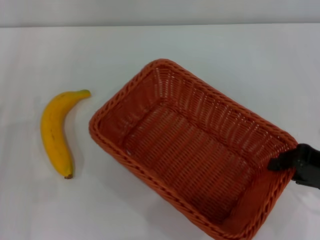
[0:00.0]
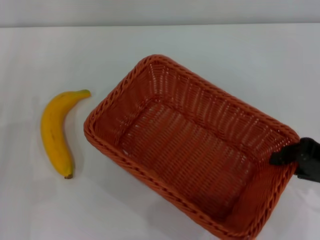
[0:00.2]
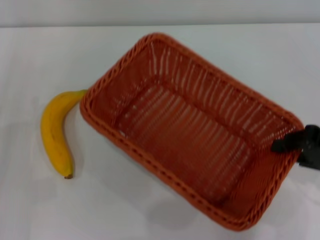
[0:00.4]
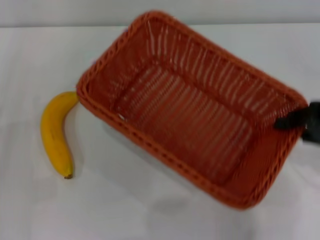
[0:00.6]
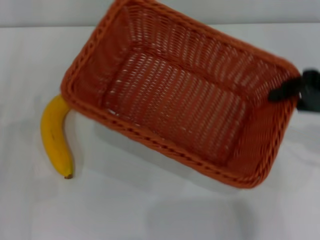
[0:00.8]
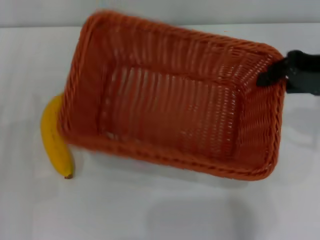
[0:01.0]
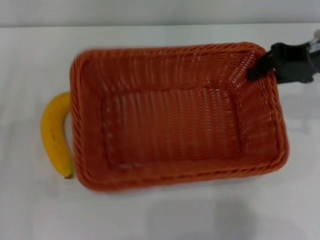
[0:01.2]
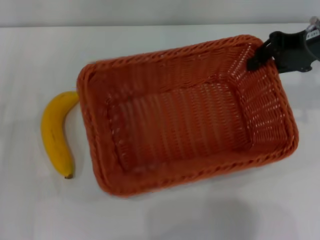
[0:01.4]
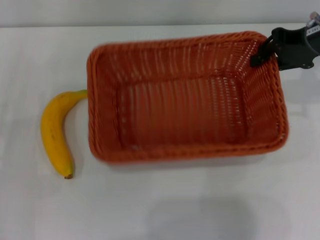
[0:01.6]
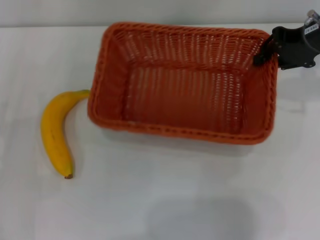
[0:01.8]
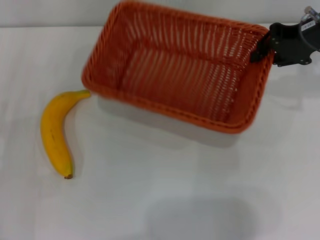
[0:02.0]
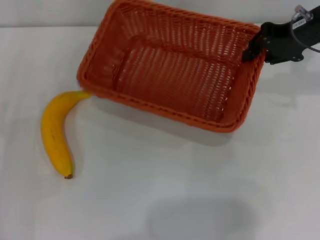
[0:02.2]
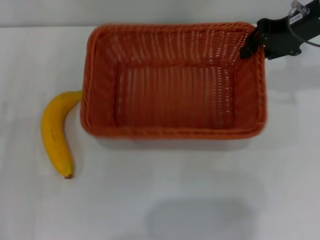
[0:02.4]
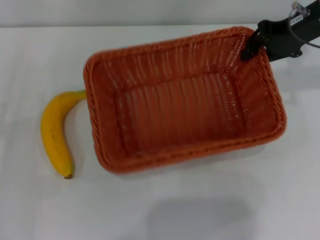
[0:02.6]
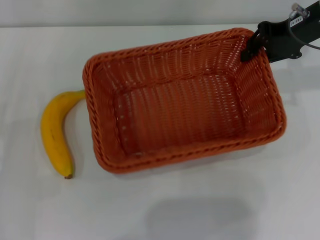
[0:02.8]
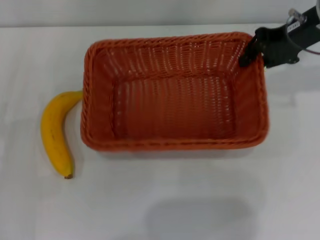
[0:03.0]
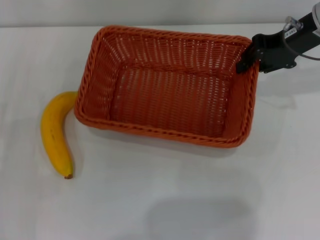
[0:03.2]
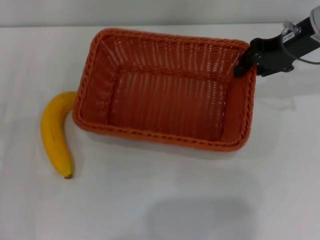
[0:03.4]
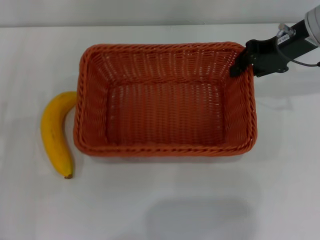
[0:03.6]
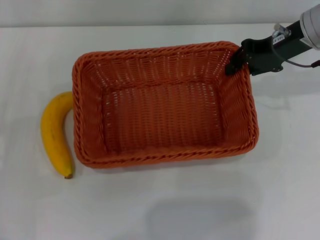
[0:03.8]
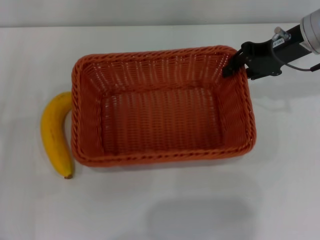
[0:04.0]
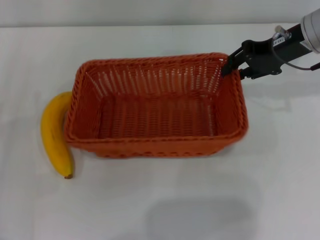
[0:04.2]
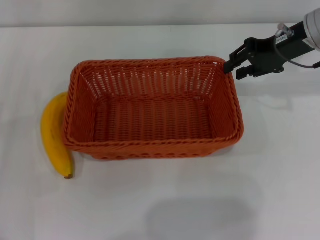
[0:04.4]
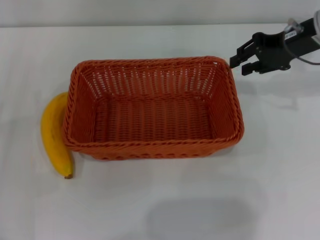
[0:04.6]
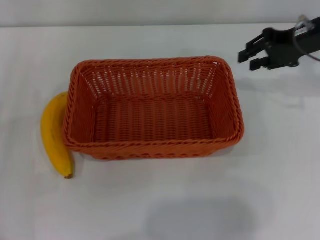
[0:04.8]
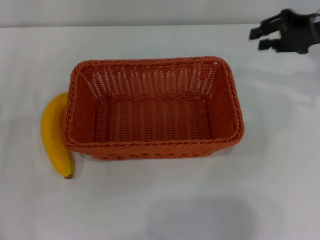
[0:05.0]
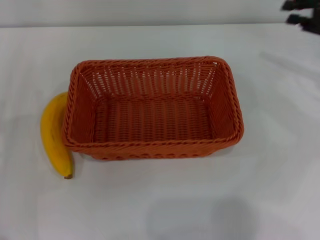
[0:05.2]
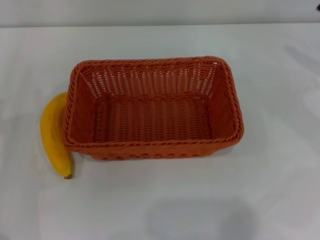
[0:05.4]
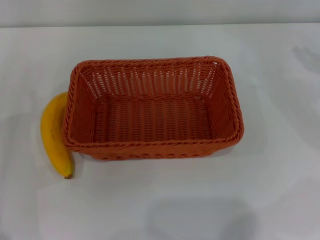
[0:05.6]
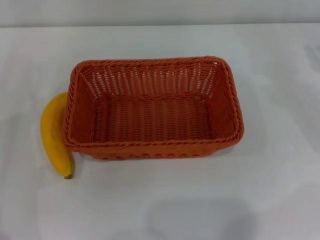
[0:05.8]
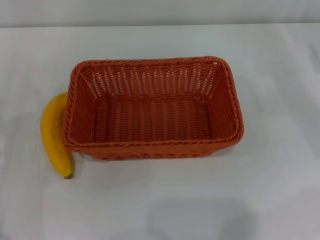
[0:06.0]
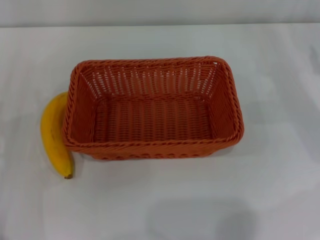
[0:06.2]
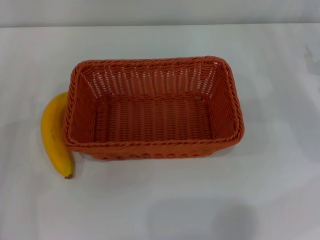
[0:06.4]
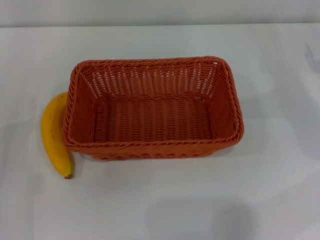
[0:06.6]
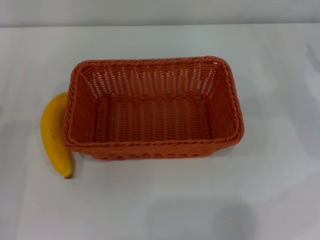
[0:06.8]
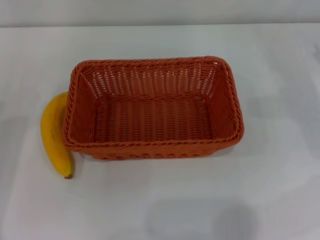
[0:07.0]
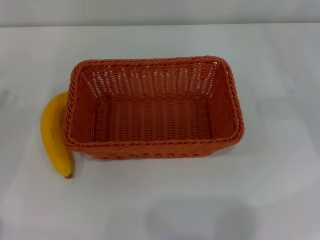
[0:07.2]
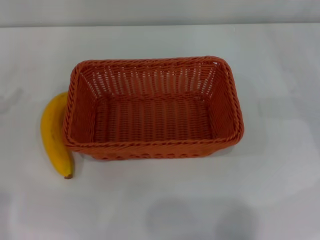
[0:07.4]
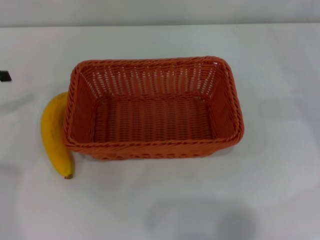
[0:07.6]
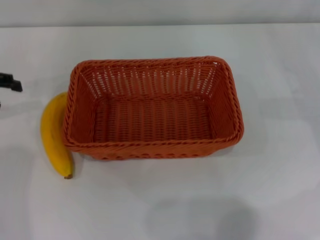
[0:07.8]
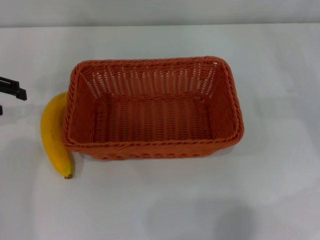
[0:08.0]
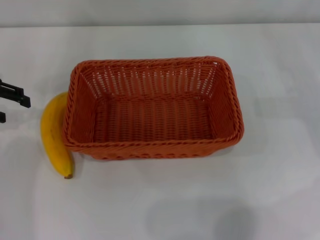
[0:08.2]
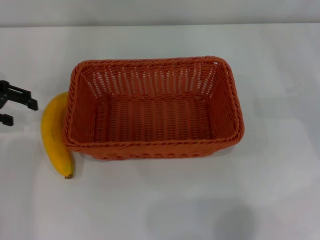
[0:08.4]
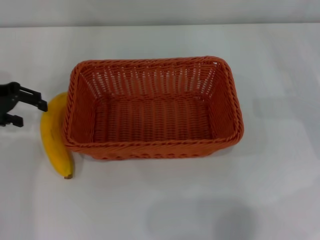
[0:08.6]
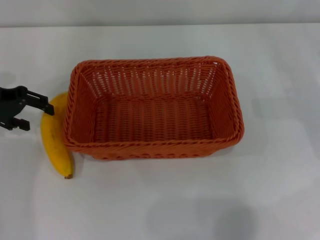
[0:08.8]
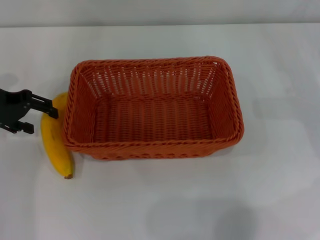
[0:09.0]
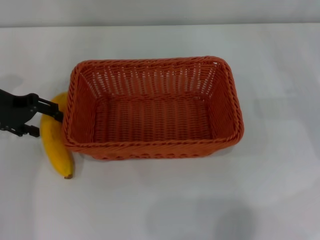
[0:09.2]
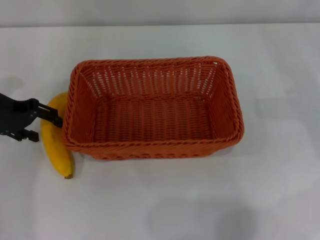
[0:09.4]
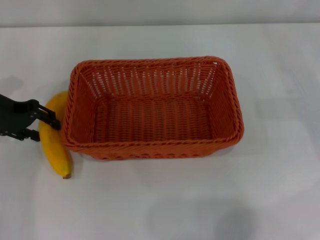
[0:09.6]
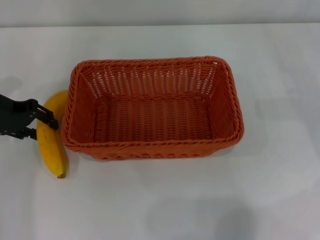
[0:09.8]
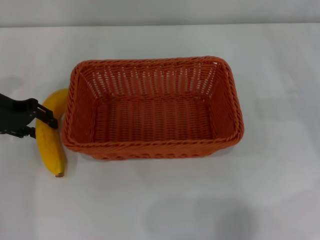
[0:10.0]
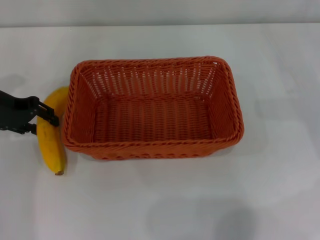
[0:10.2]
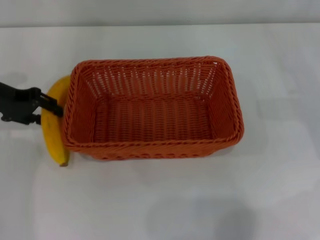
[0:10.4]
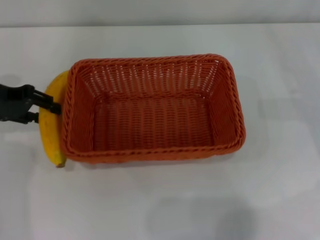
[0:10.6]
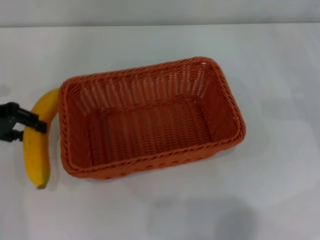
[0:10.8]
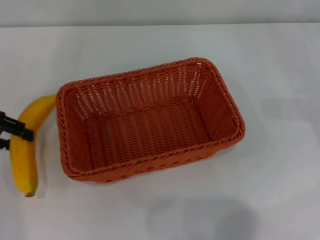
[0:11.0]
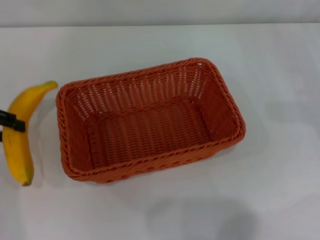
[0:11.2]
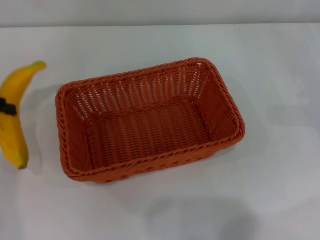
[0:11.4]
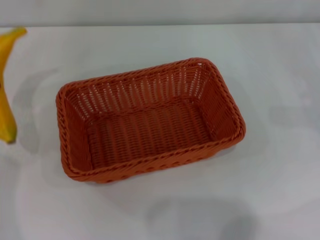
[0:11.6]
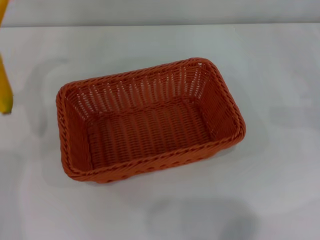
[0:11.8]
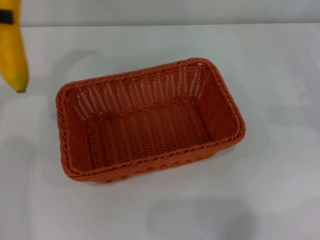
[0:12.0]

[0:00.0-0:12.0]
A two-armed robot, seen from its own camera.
Step, 0:00.4 to 0:04.8: Place the light basket in the center of view with the right gripper.
Step, 0:05.2 to 0:11.2: Pick up the banana with the left gripper.
0:00.0 to 0:01.6: The right gripper goes some 20 cm forward and upward.
0:01.6 to 0:04.4: The grippers move only a little.
0:04.4 to 0:06.0: The right gripper moves to the right and downward, approximately 15 cm.
0:07.6 to 0:09.0: The left gripper heads to the right, covering about 10 cm.
0:09.0 to 0:10.4: The left gripper closes its fingers.
0:10.4 to 0:12.0: The left gripper moves upward and to the left, some 15 cm.

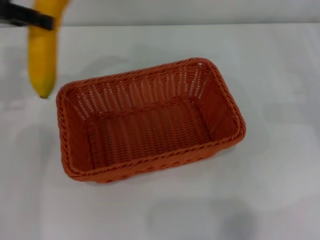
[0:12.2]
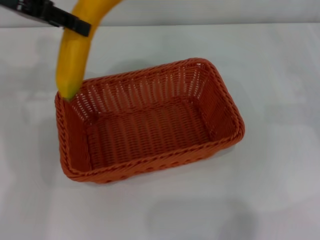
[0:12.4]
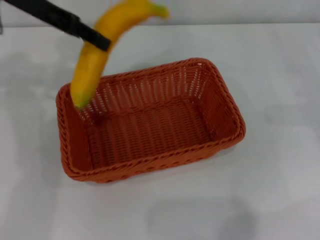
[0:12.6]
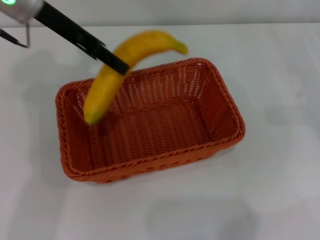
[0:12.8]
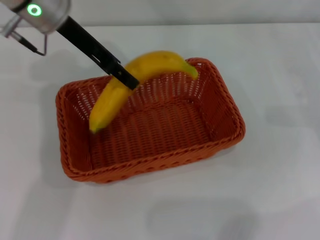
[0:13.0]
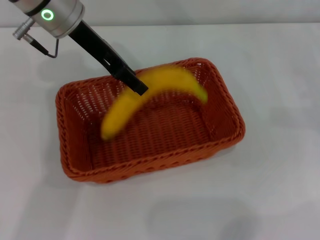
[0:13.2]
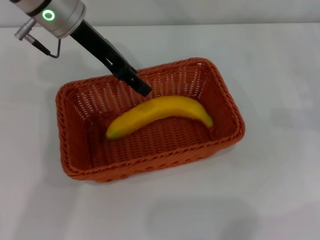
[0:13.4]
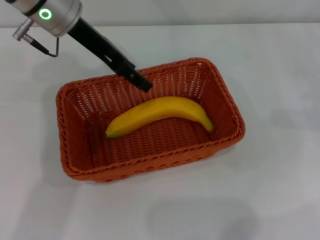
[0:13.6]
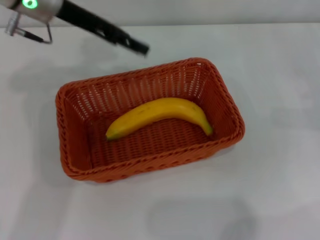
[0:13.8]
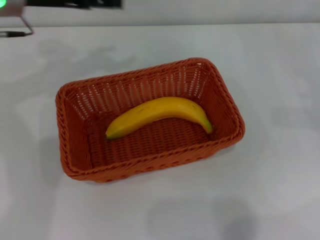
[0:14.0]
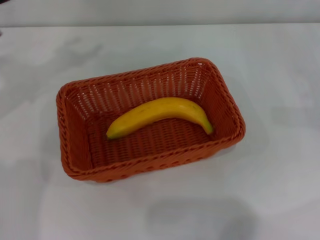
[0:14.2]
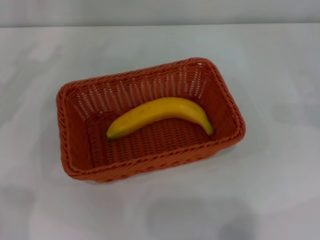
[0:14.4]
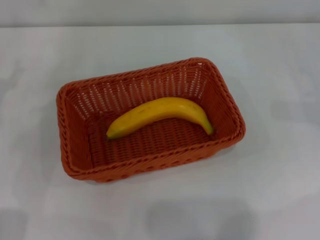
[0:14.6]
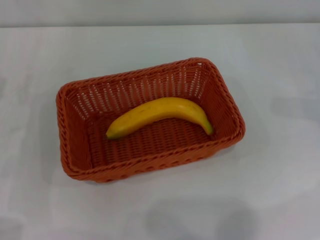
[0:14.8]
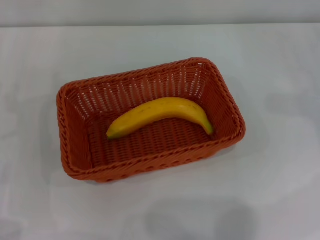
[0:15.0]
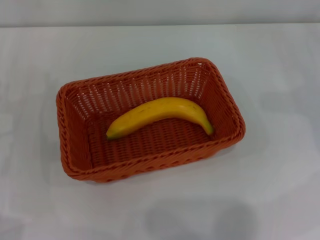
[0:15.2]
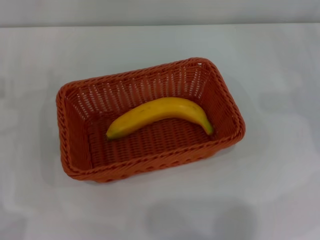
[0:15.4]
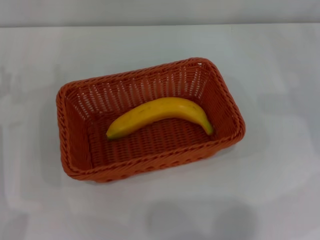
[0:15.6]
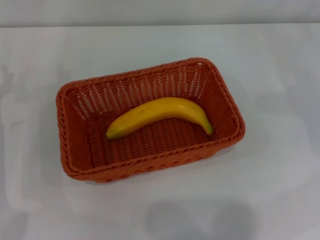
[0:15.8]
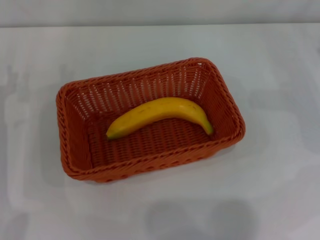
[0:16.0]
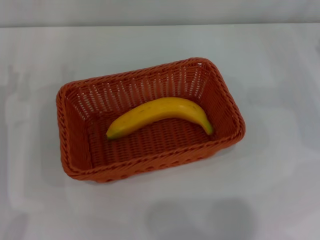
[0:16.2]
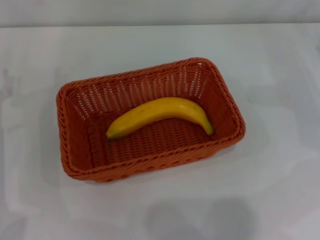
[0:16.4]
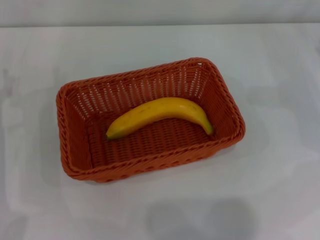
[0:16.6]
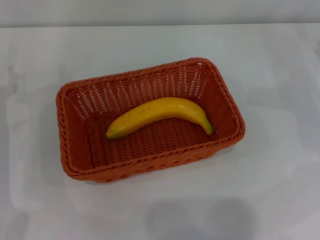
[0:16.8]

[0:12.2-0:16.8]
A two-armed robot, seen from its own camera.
Step, 0:12.2 to 0:13.4: Place the banana into the light basket with the left gripper.
0:12.2 to 0:13.8: The left gripper shifts roughly 10 cm to the right, and opens its fingers.
0:13.8 to 0:15.2: The left gripper shifts about 25 cm downward, backward and to the left.
